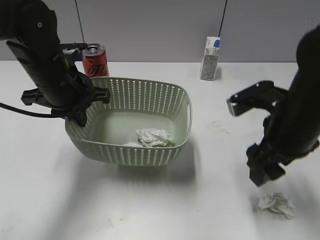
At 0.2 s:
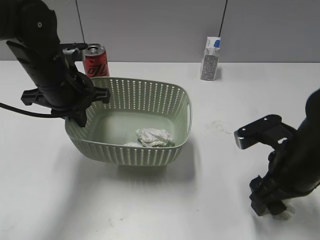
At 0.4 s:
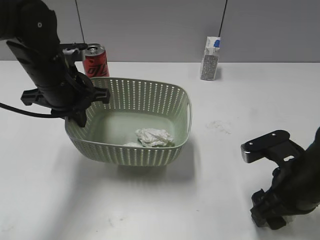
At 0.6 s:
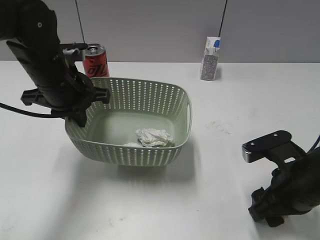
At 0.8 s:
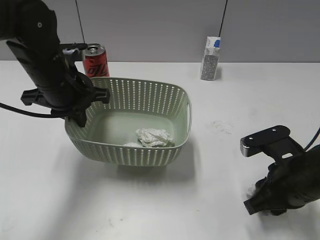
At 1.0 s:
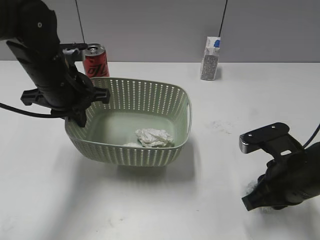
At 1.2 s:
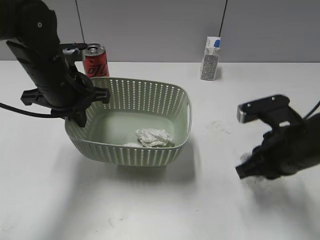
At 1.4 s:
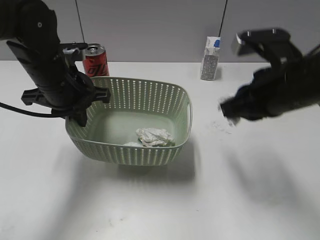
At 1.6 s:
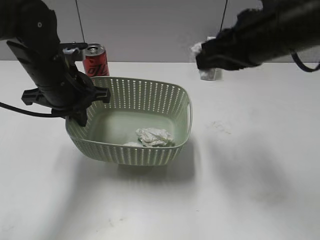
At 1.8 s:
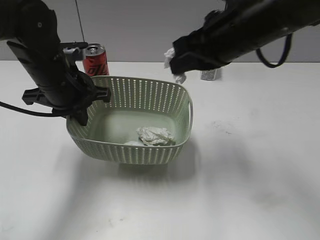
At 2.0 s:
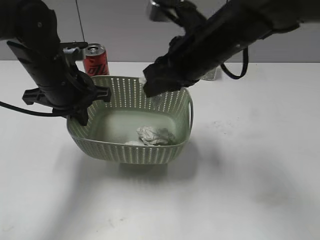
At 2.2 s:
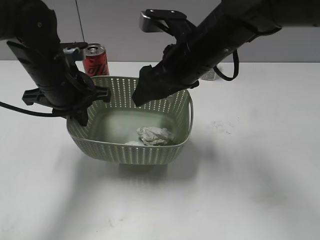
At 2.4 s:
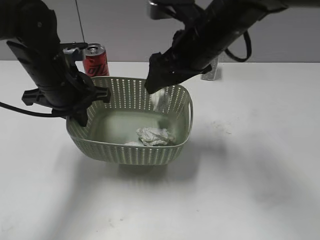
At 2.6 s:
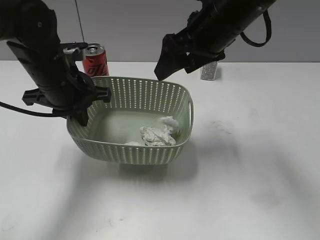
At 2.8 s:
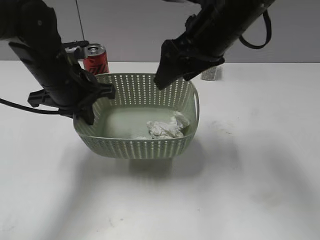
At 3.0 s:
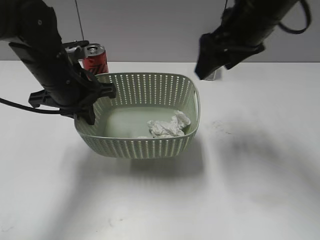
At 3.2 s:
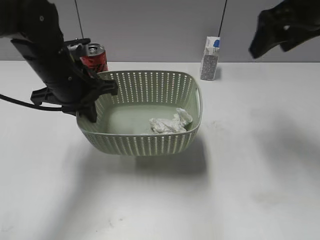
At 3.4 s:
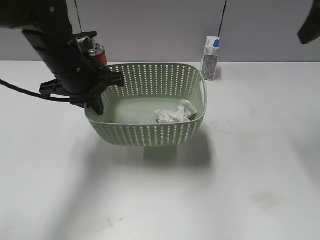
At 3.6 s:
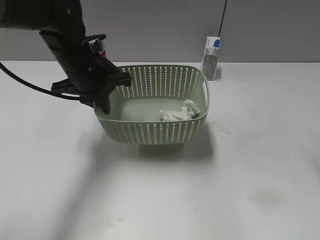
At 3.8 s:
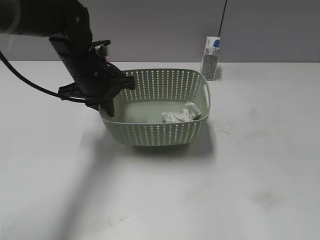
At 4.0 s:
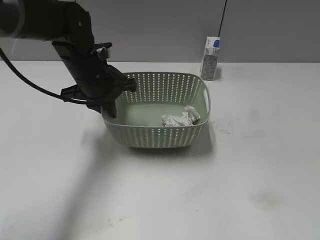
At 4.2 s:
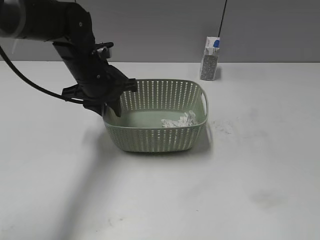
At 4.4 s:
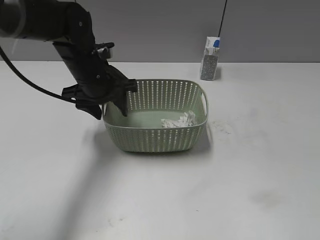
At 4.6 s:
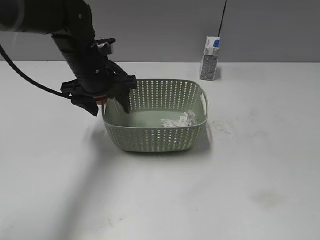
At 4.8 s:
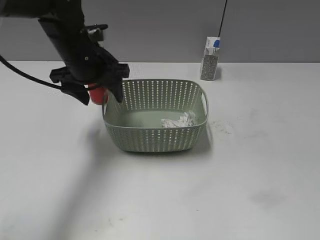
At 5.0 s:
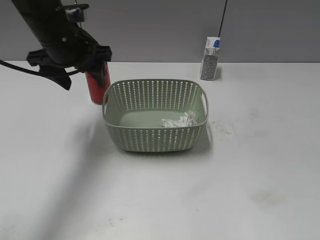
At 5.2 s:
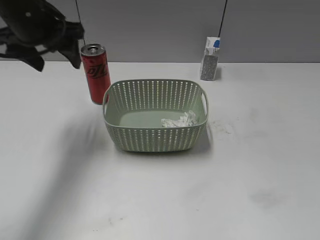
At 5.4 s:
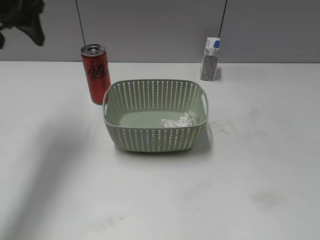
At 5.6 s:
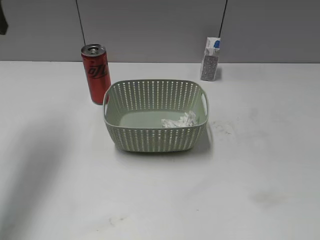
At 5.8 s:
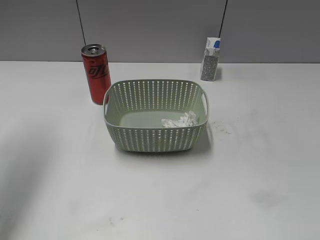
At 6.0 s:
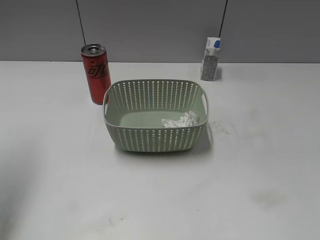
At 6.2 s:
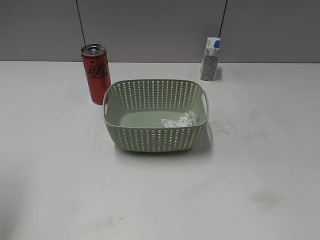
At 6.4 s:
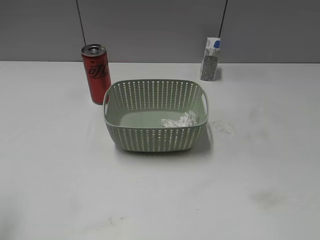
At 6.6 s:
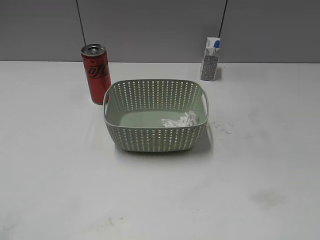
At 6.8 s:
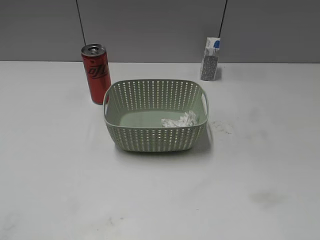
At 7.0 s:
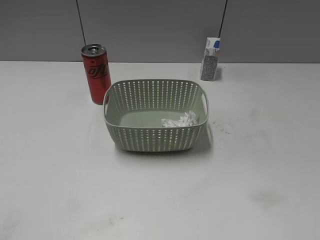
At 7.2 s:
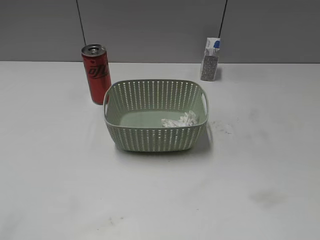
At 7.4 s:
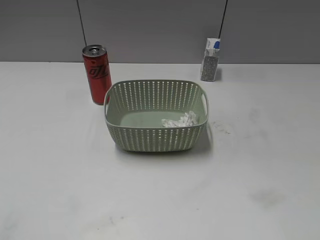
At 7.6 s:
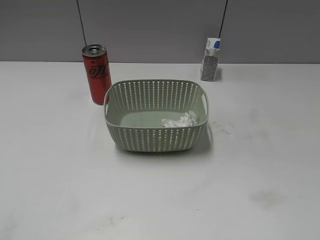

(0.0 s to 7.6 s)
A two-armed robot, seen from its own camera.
Step, 0.0 s - 1.0 s: Grasp the waste paper with right gripper.
Step, 1.2 s - 2.6 s: Place the waste paper in the basket with right gripper.
Step, 2.8 s - 5.0 s: Place the basket on the table with left gripper.
0.0 s - 1.6 s: The right gripper shifts roughly 10 cm upward, and closes up.
1.6 s - 3.0 s: The right gripper heads forward, covering about 5 cm, travels to the left and back again, roughly 10 cm each way, and opens its fingers.
3.0 s - 4.6 s: The left gripper shifts some 5 cm forward, and opens. Meanwhile the right gripper moves backward and to the right, about 35 cm.
4.6 s - 6.0 s: The left gripper goes approximately 30 cm to the left, upward and backward.
6.0 s - 7.6 s: The left gripper goes roughly 25 cm backward.

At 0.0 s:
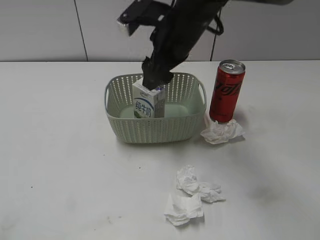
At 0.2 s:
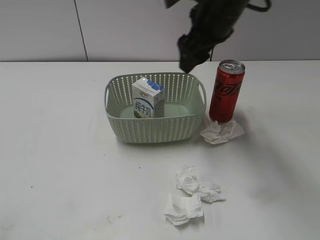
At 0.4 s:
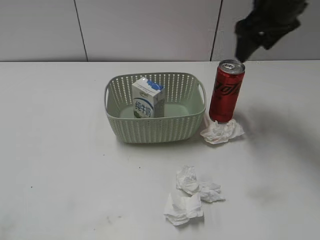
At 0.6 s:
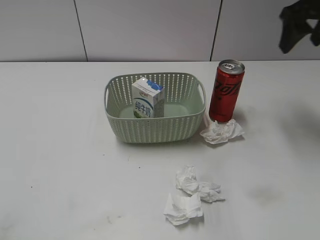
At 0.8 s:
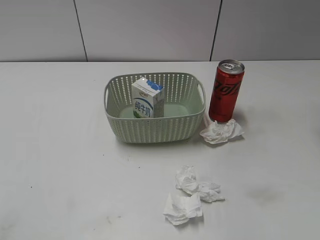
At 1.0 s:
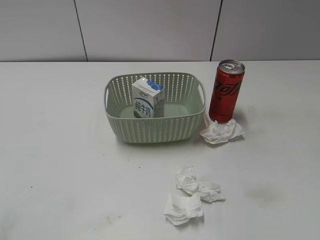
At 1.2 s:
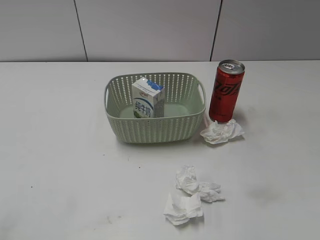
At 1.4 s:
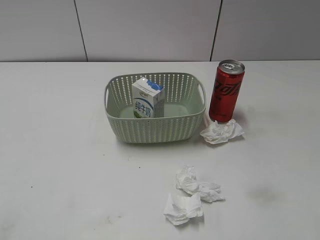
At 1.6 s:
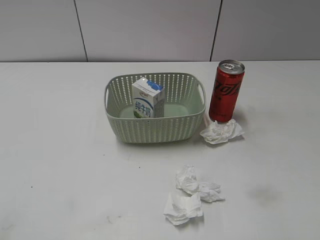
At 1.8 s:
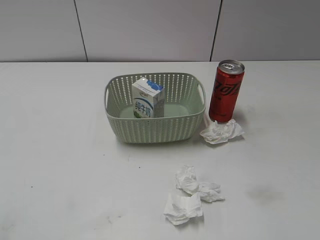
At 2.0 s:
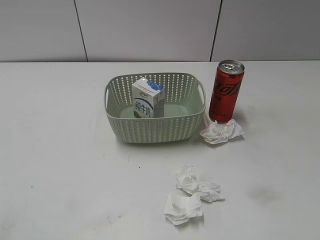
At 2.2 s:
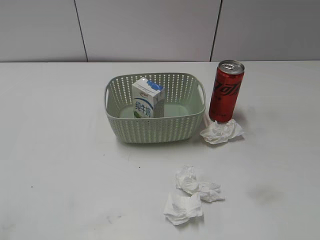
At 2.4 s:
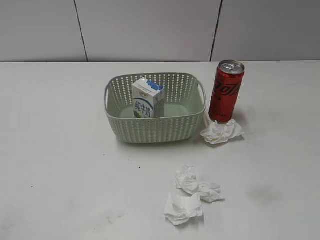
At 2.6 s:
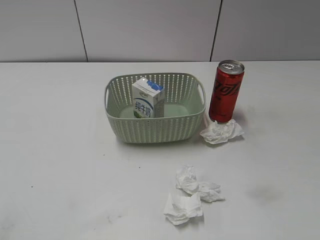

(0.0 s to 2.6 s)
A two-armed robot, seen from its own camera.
0.0 s - 1.2 s: The right gripper shifts some 30 cm to the right and backward.
